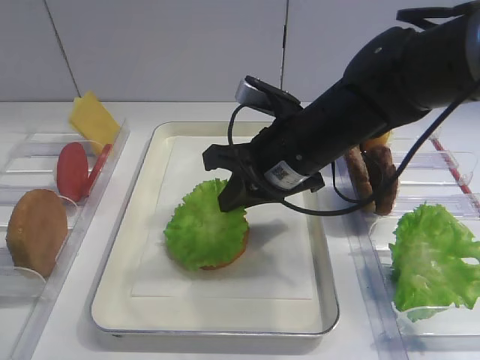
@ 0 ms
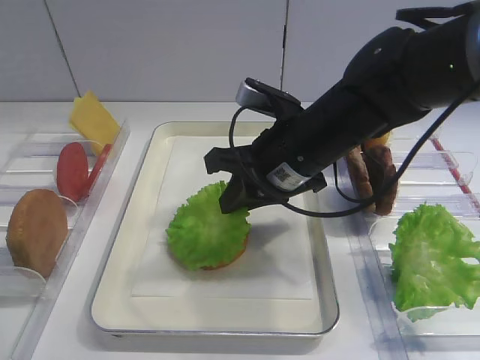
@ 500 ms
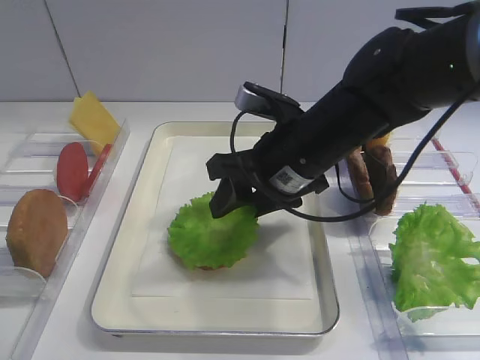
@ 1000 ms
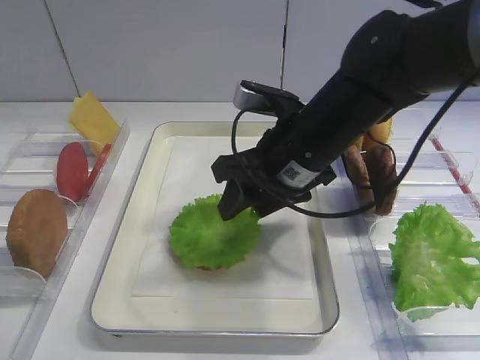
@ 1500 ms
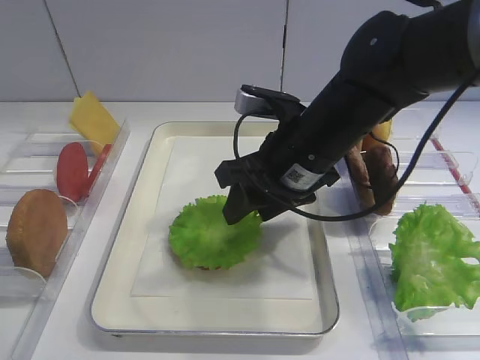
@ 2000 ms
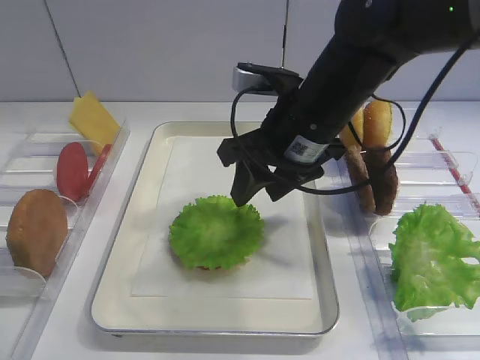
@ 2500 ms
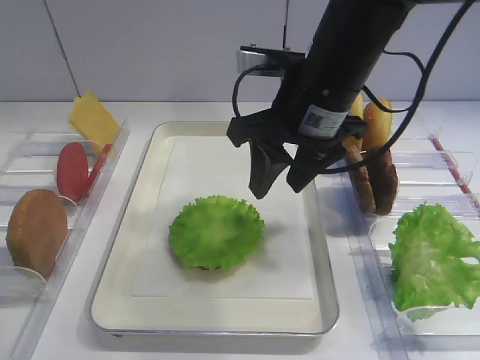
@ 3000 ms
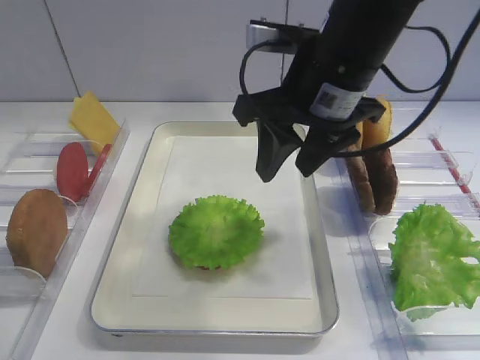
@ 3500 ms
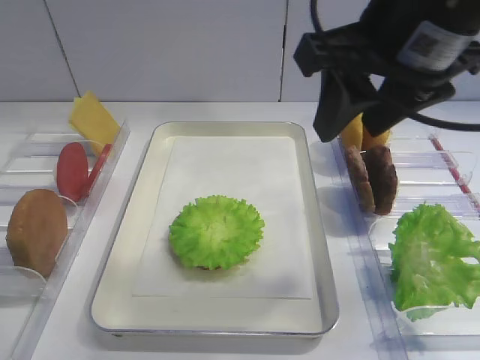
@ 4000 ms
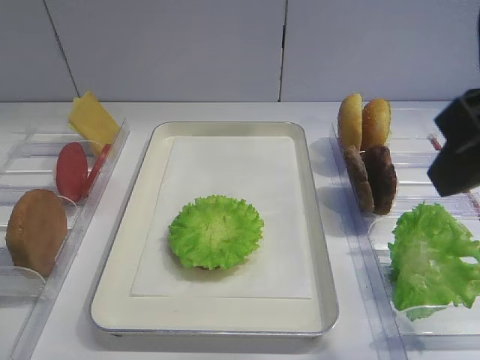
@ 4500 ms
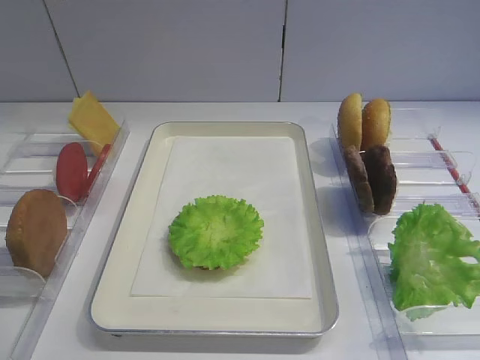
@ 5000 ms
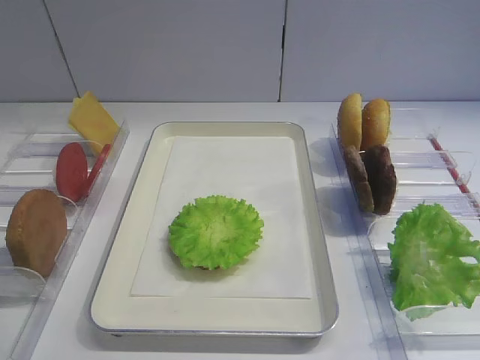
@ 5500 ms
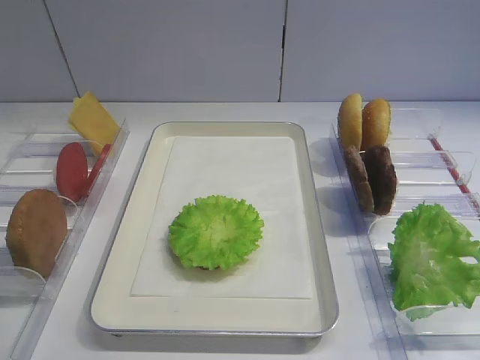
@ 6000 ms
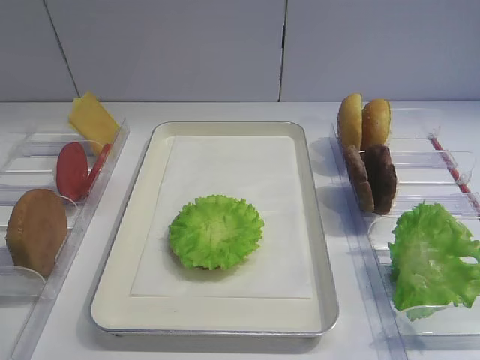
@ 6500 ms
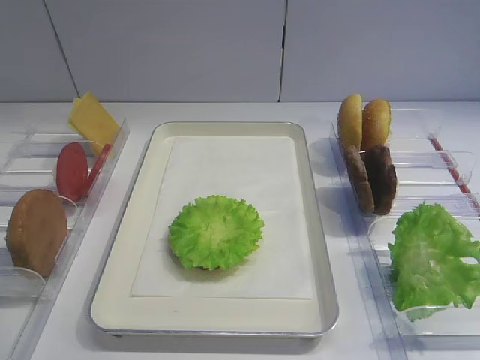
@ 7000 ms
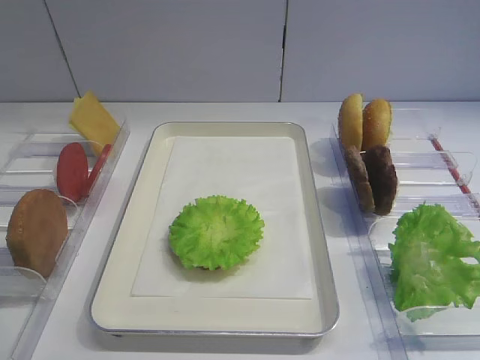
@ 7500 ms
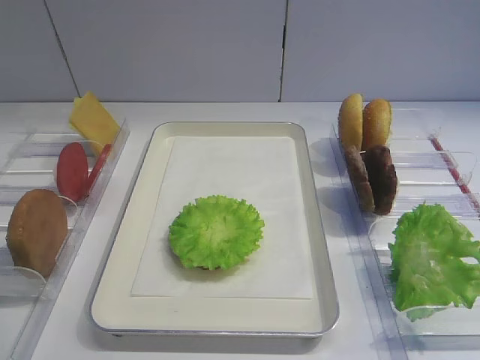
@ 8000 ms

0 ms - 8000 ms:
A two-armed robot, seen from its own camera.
Step, 0 ms - 2500 ms: Place the lettuce leaf on the bread slice with the right gripper.
0 ms - 2000 ms: The right gripper opens its fingers.
2000 ms - 4000 ms: The right gripper shifts approximately 15 cm upward and backward.
4000 ms - 6000 ms: The right gripper goes roughly 25 cm backward and to the right.

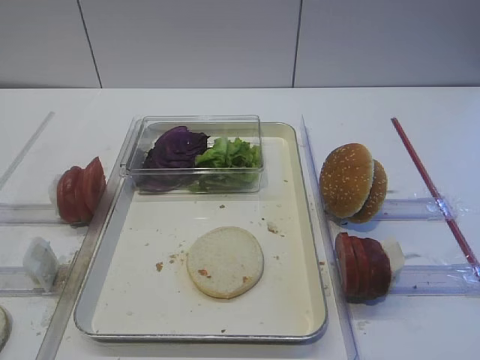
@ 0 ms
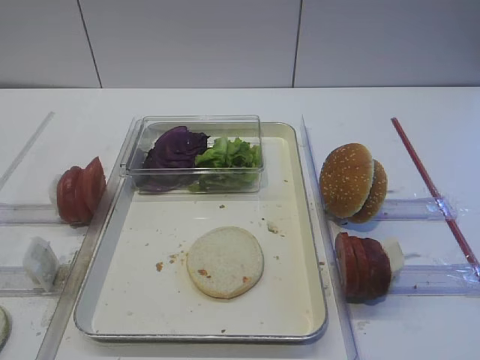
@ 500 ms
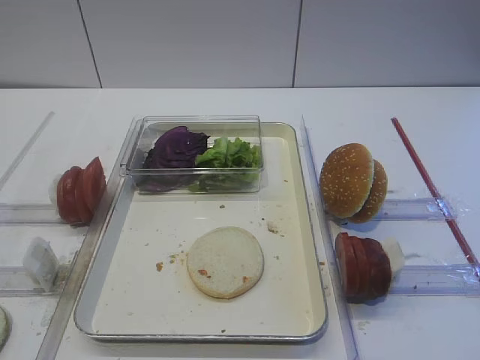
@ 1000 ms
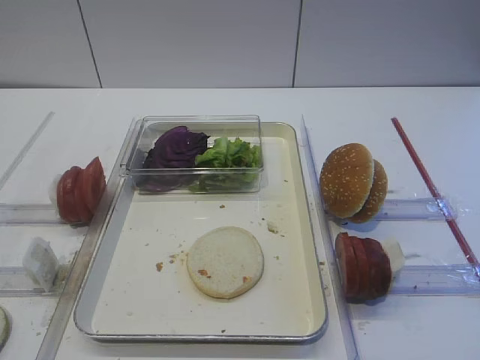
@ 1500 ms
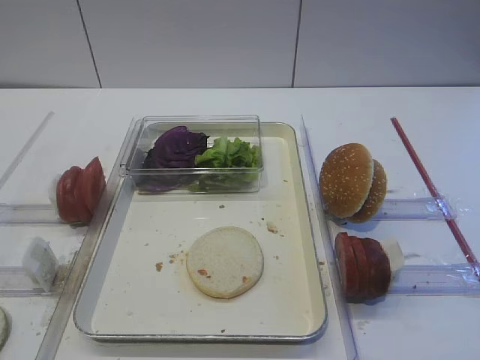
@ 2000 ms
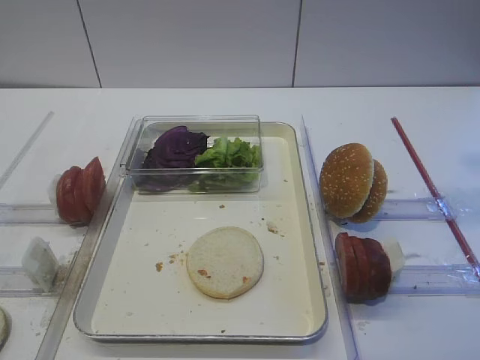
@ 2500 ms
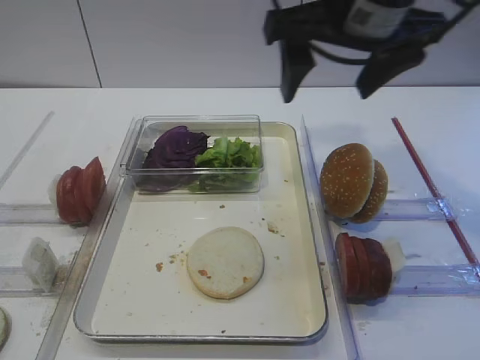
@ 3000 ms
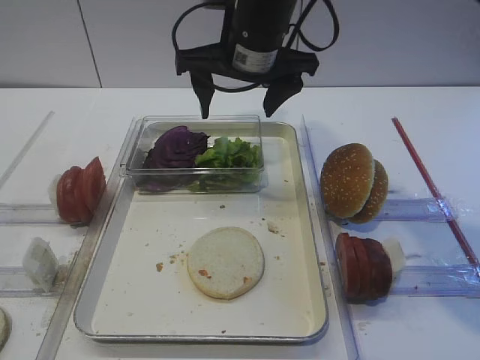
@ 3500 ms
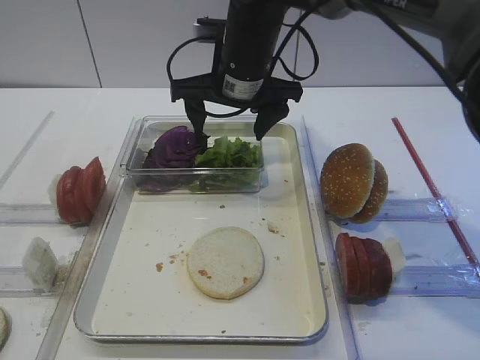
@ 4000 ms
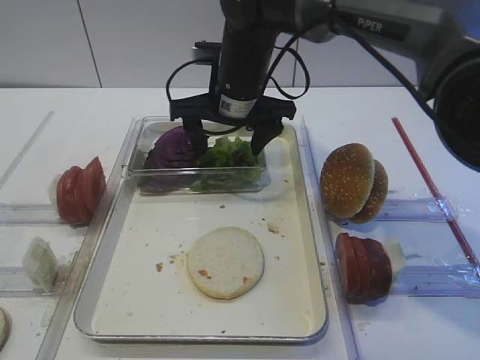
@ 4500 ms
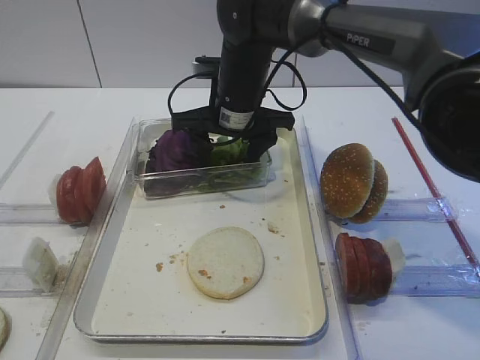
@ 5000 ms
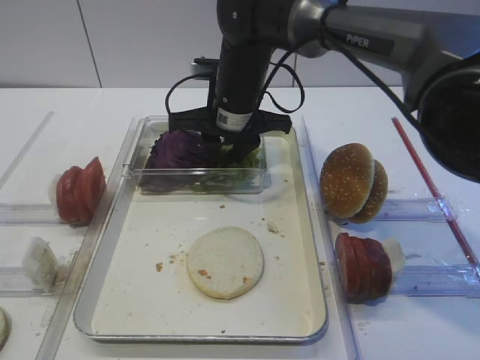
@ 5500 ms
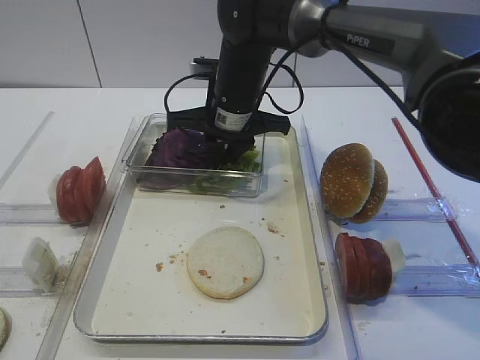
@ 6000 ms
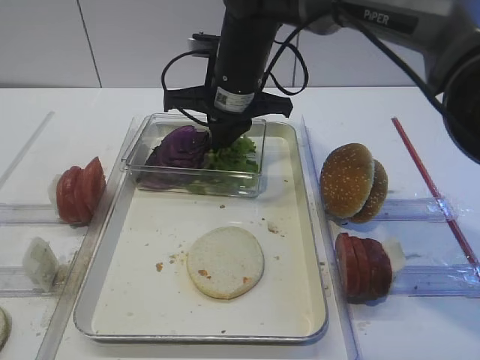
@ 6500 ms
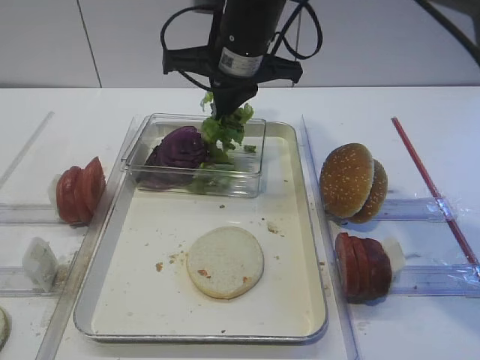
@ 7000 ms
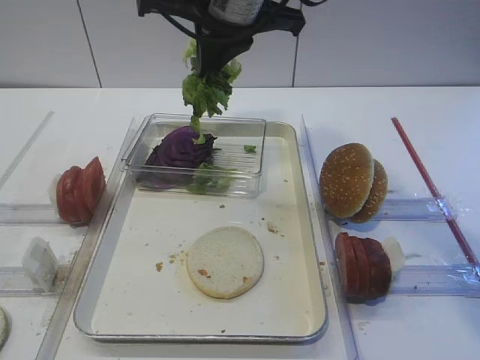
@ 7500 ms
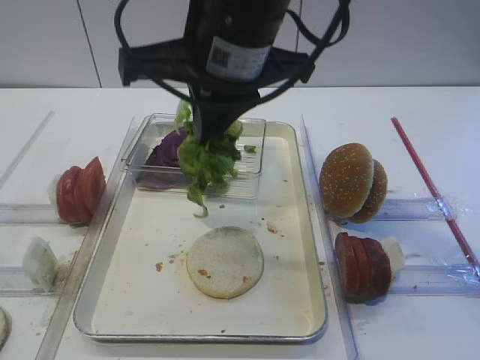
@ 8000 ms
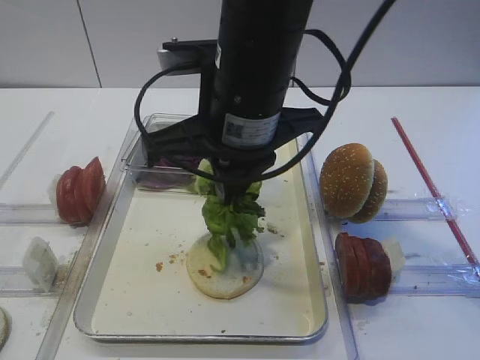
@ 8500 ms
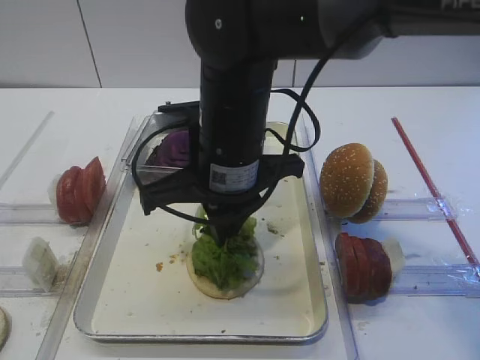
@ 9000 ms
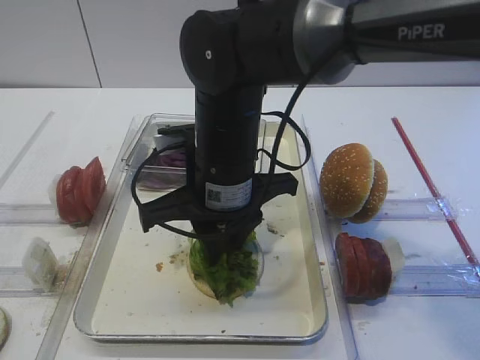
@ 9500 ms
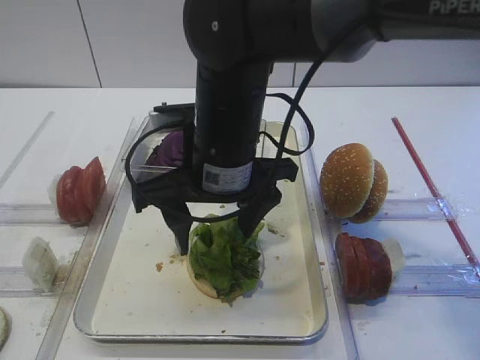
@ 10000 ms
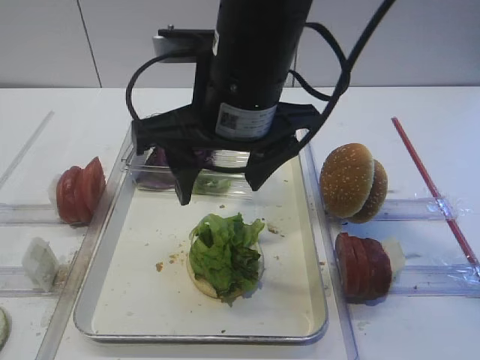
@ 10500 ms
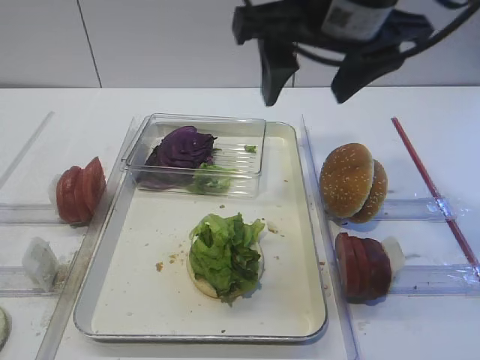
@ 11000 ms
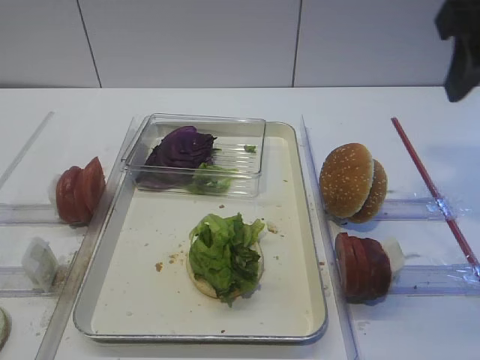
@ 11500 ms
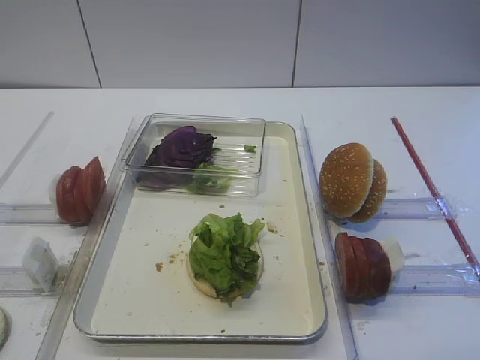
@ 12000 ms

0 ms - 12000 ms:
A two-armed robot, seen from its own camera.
Step, 0 ms - 6500 ms: Pick up the lettuce leaf with the right gripper.
Step, 7500 ms - 10000 ms: Place the lettuce leaf on the bread slice with the right gripper.
2000 ms - 4000 ms: The right gripper is displaced forward and to the left by some 40 cm.
4000 ms - 6000 ms: The right gripper moves approximately 5 cm, and closes.
6000 ms - 8000 ms: The right gripper is displaced upward and backward by approximately 20 cm.
8000 ms - 10000 ms: The right gripper heads downward, covering some 10 cm, and opens.
10000 ms - 12000 ms: The right gripper travels to the right, upward and backward by some 35 cm.

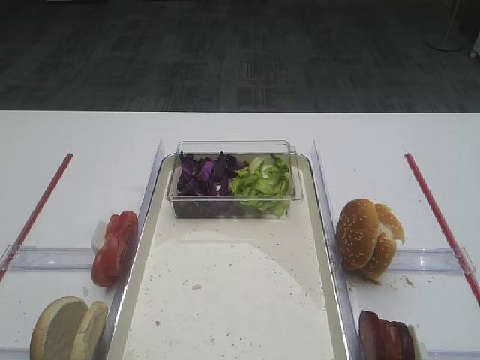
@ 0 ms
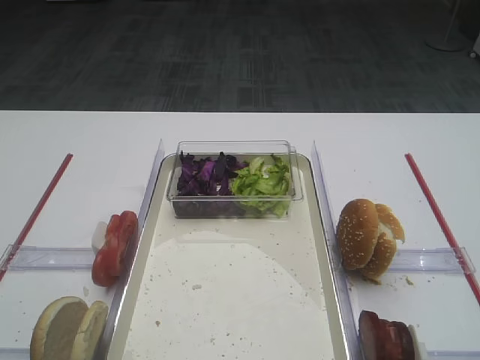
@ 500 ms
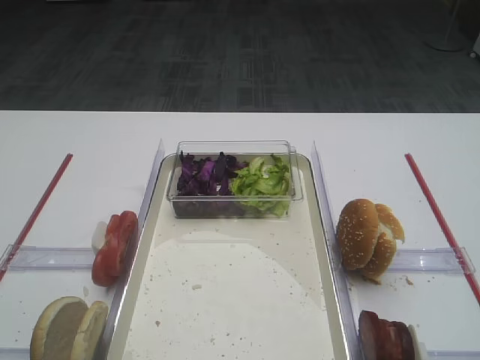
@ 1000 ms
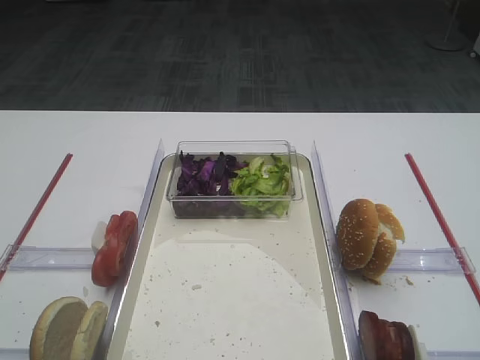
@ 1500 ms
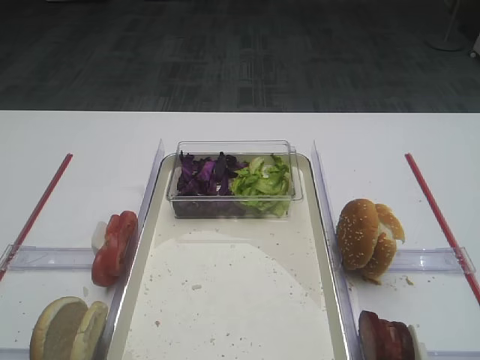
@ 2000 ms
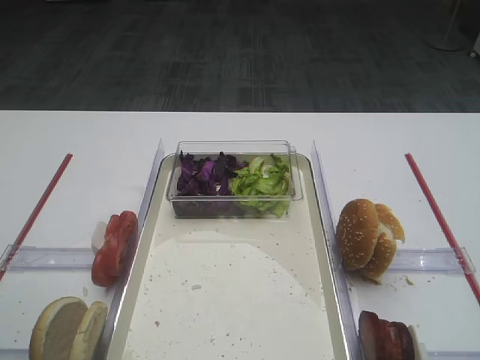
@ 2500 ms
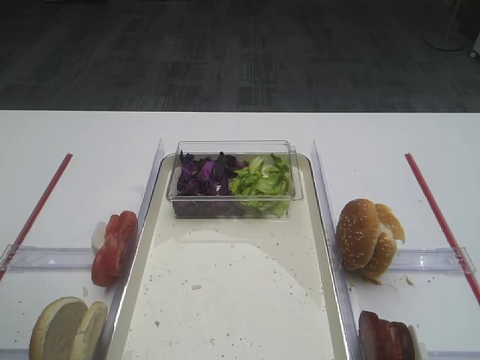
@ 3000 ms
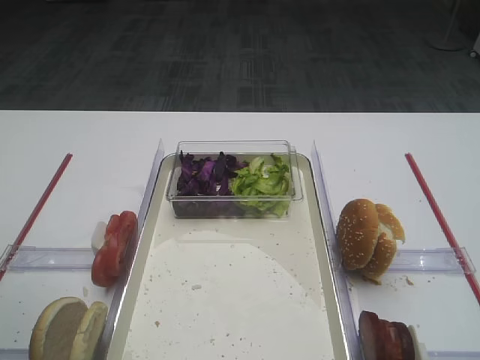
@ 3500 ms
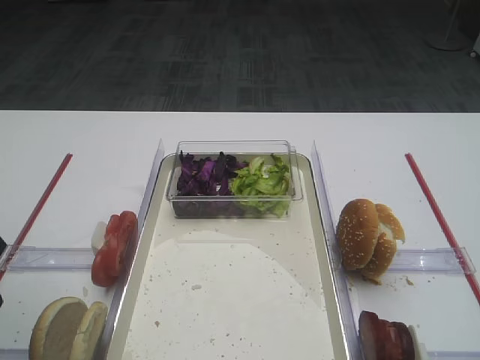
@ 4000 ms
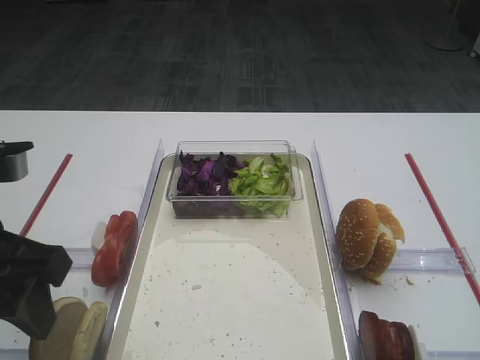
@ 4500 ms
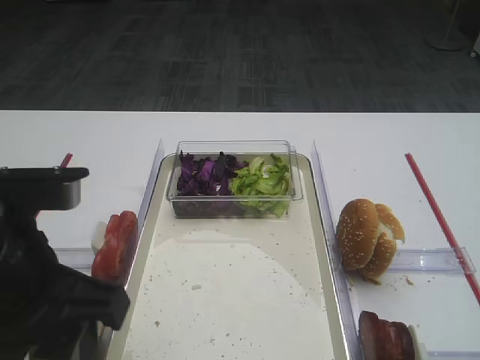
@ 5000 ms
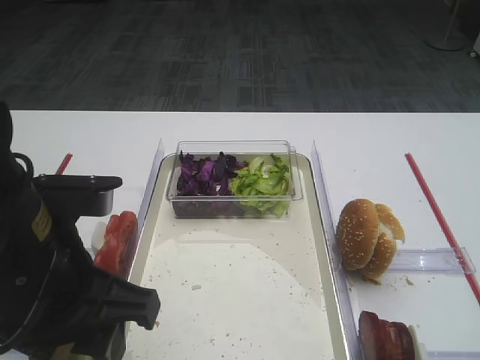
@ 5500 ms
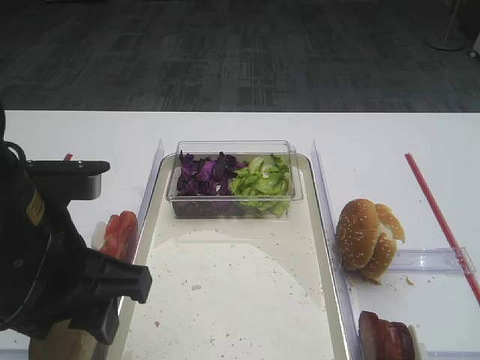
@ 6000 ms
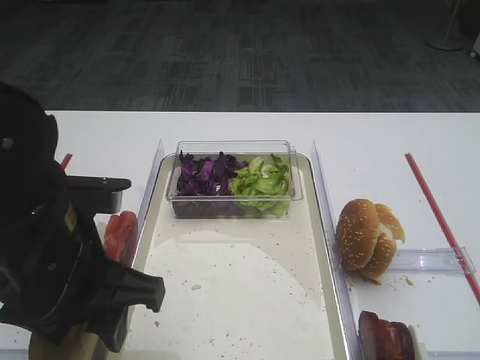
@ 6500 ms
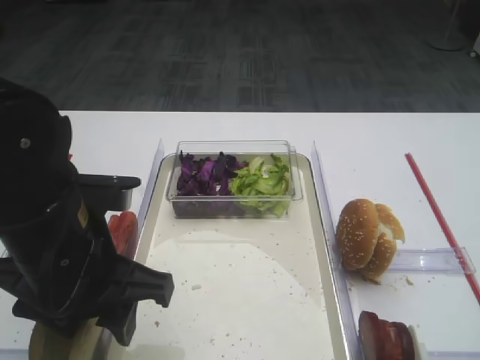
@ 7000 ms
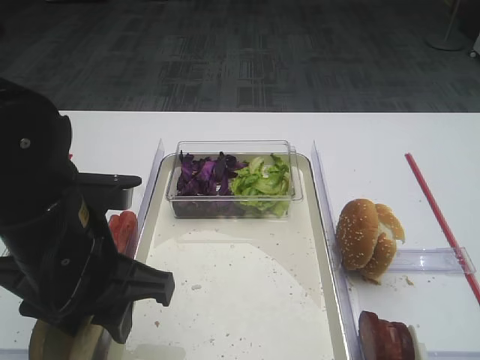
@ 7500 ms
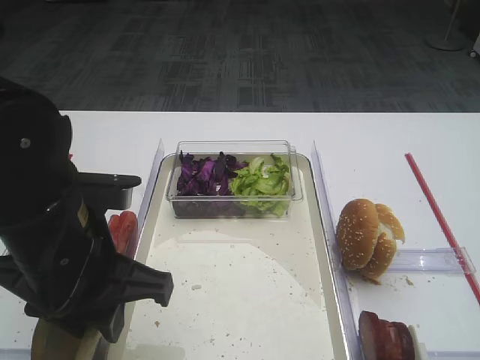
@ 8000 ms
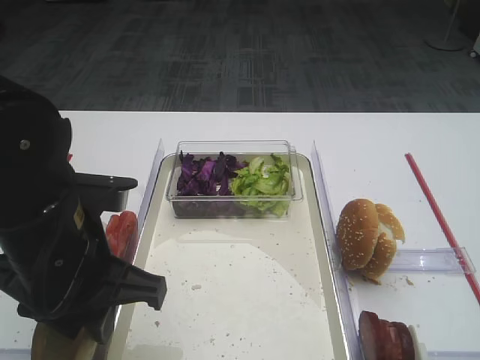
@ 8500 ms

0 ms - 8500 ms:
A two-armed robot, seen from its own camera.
4000 ms - 6500 ms: The left gripper heads to the right, covering some 10 cm.
6500 ms - 8500 ms: The left gripper closes.
